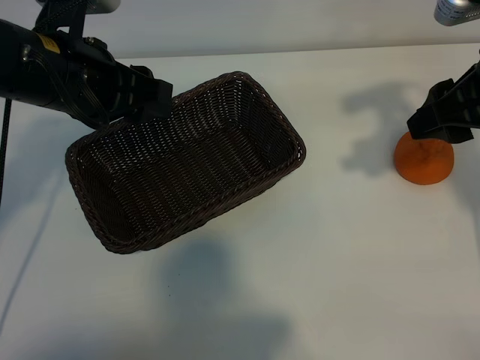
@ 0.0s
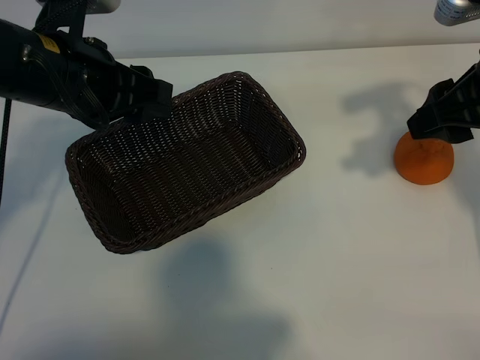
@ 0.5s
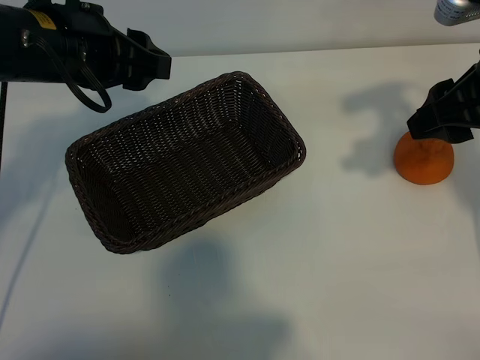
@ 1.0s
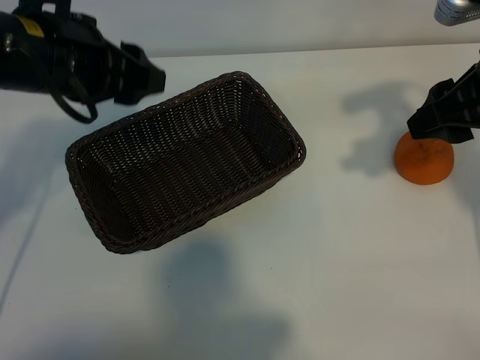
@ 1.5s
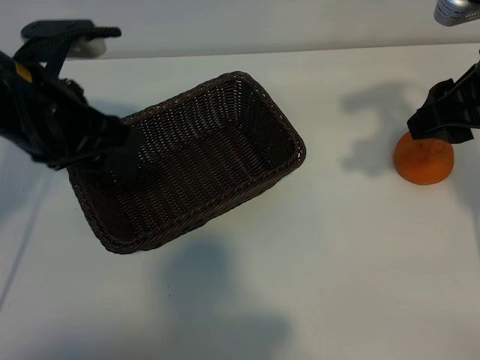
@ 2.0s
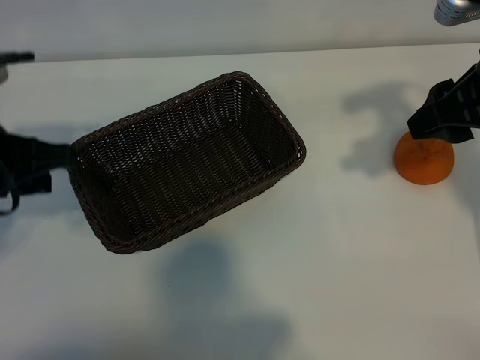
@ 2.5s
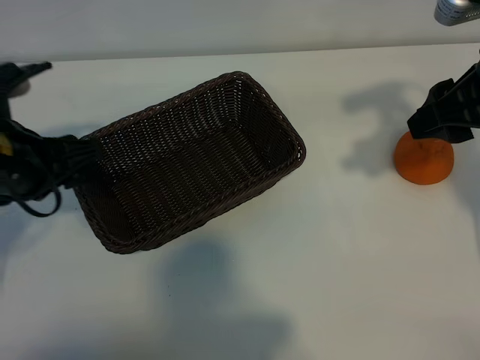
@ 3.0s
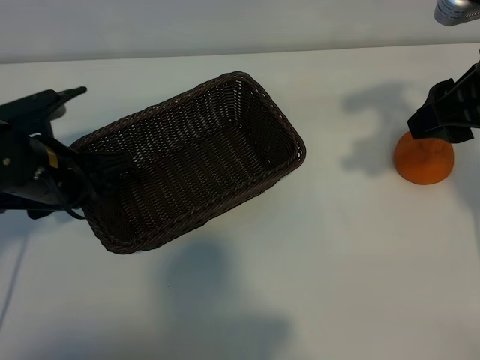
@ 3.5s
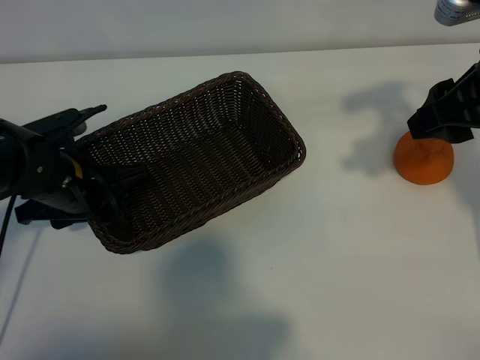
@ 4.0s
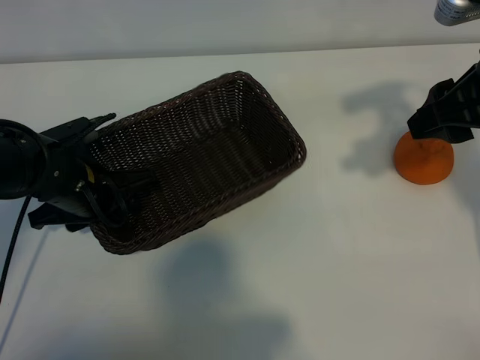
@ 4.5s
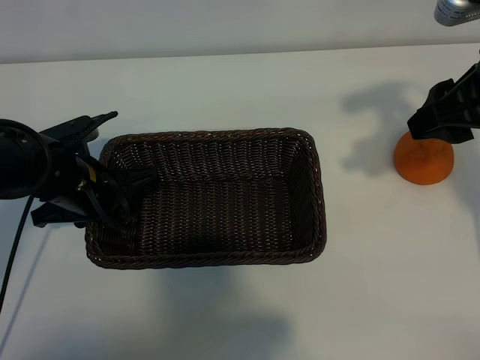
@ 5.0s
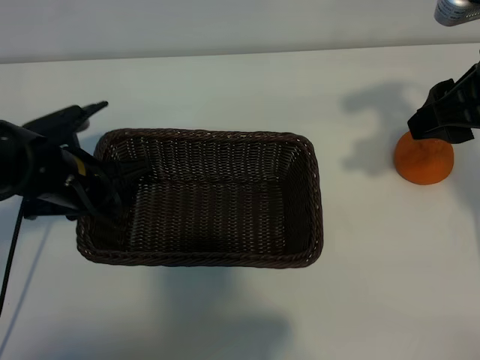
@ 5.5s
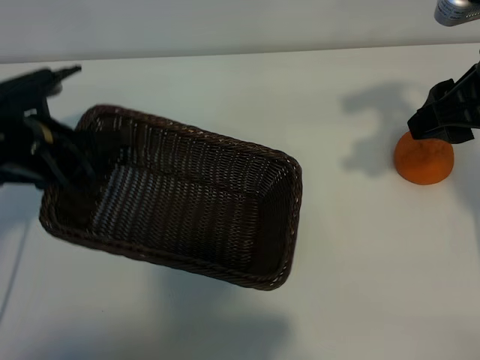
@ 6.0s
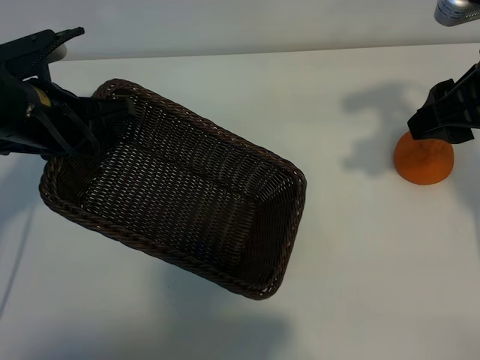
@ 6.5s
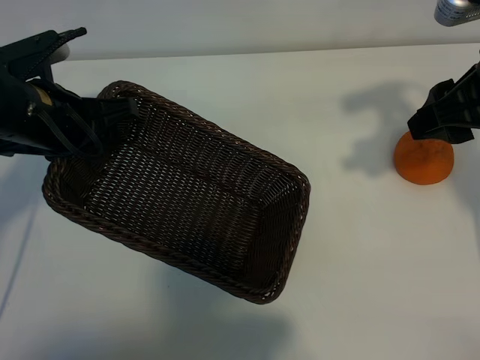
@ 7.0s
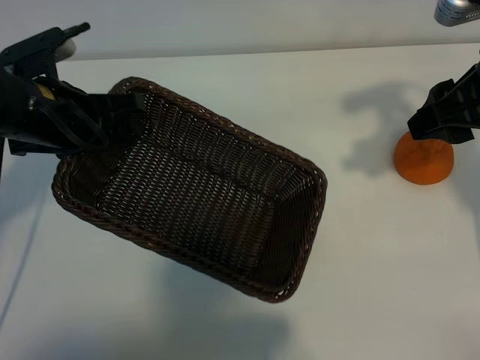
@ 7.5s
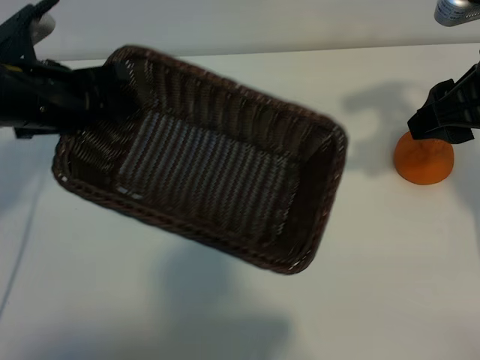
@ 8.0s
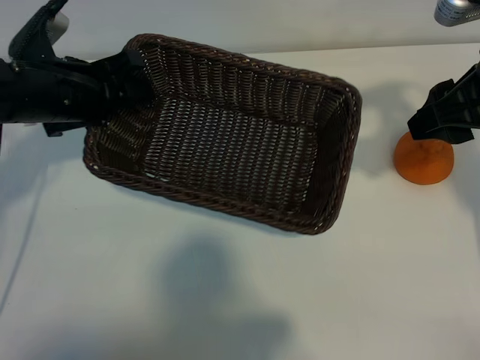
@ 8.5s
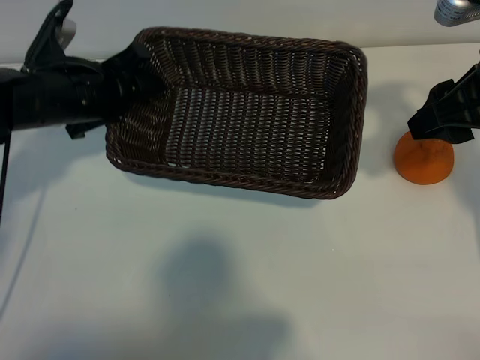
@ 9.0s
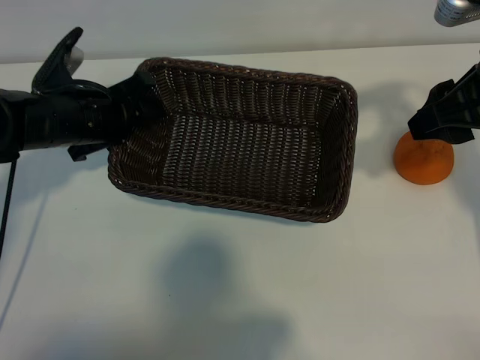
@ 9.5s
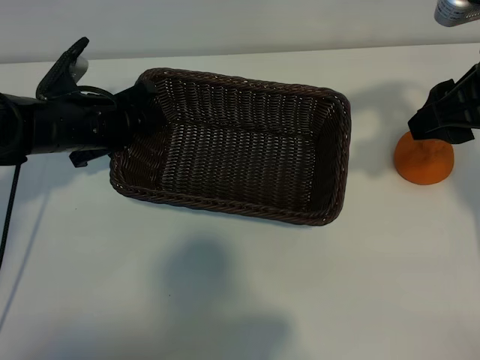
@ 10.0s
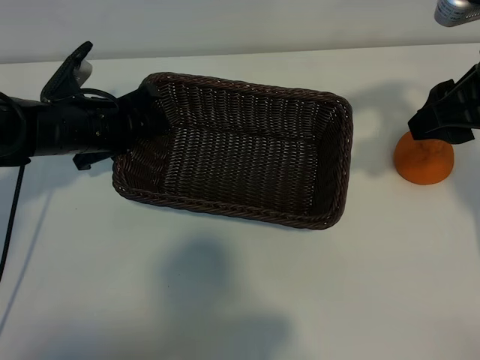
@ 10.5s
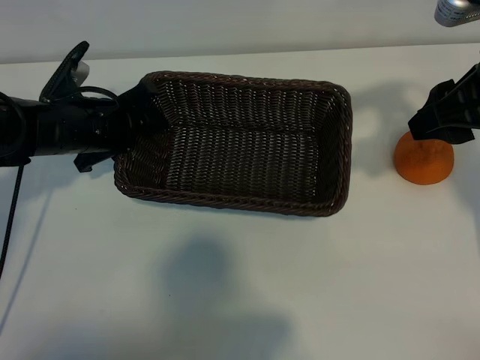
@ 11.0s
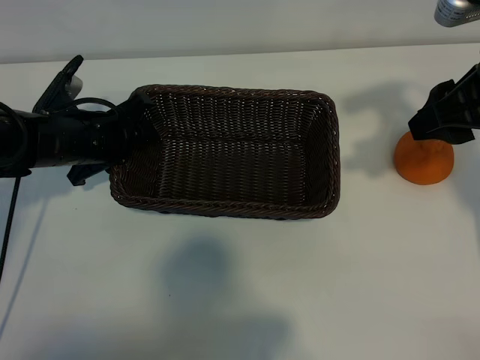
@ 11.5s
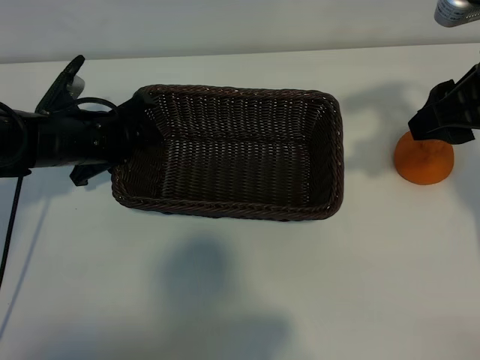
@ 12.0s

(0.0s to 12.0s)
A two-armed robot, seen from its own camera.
Task of the whole recording: pick up the orange and put it into the basket.
Step, 1.0s - 5.0s: Grasp the basket with left gripper.

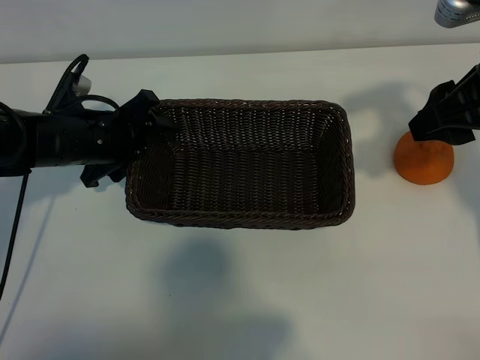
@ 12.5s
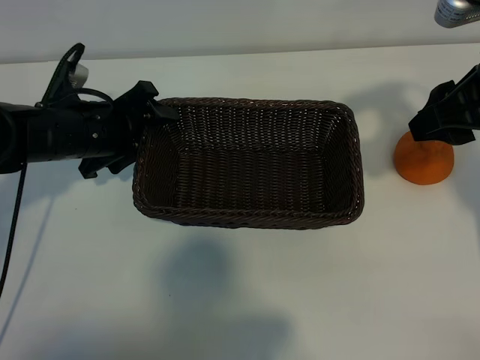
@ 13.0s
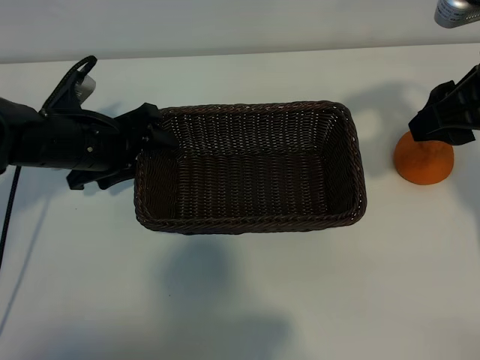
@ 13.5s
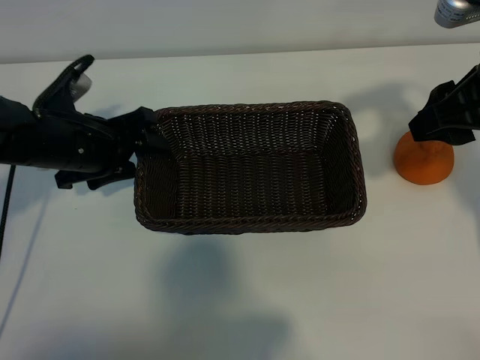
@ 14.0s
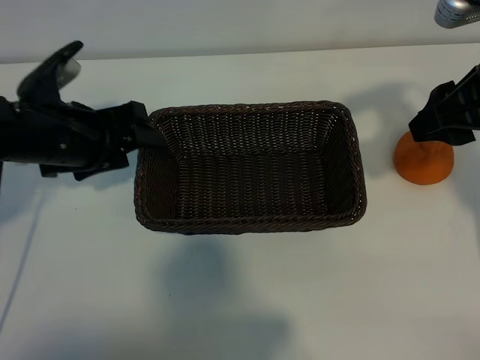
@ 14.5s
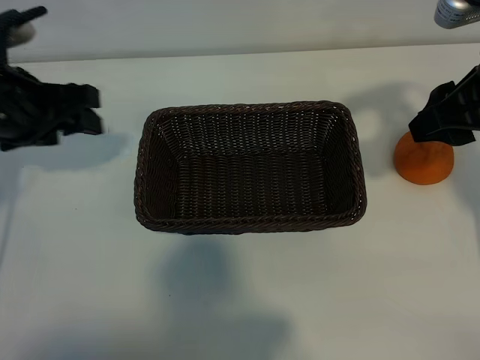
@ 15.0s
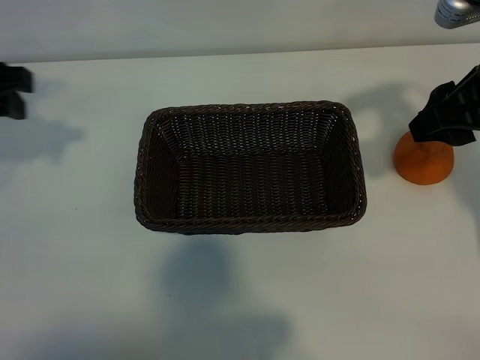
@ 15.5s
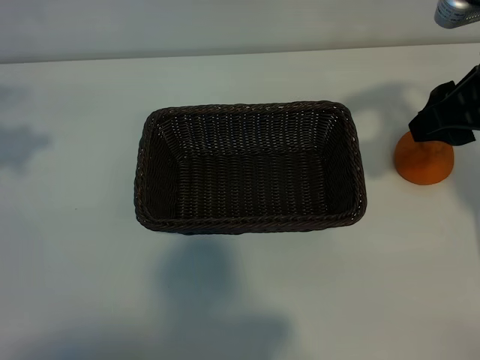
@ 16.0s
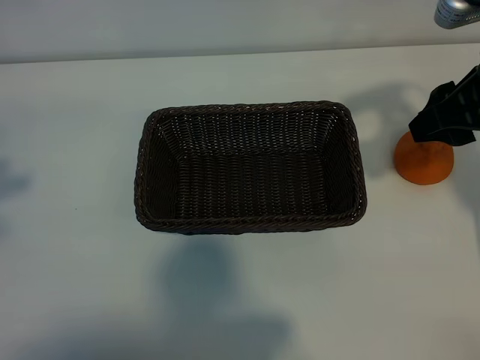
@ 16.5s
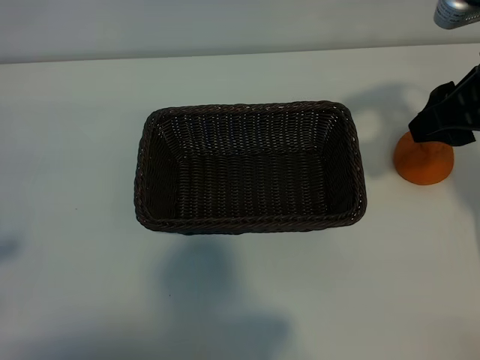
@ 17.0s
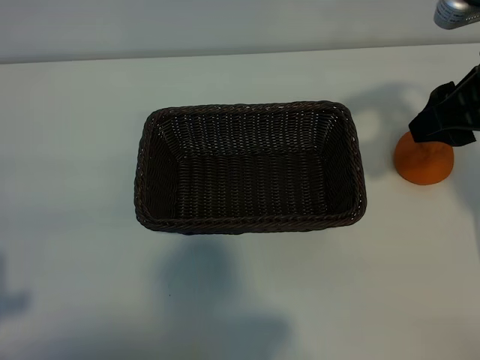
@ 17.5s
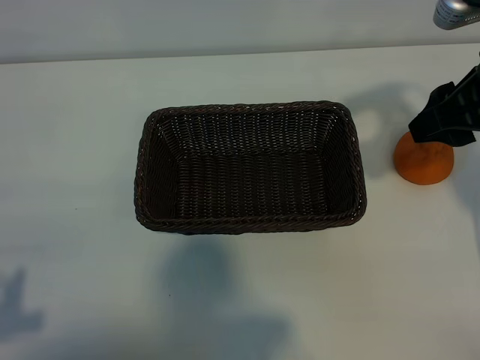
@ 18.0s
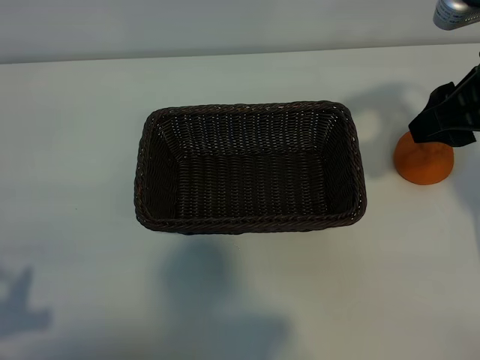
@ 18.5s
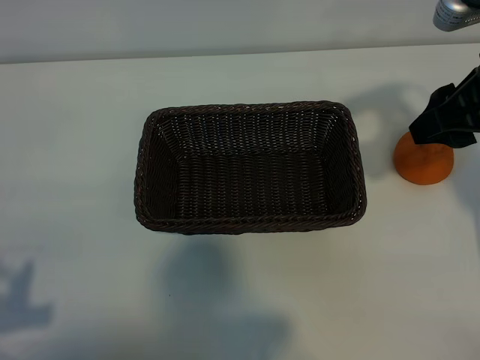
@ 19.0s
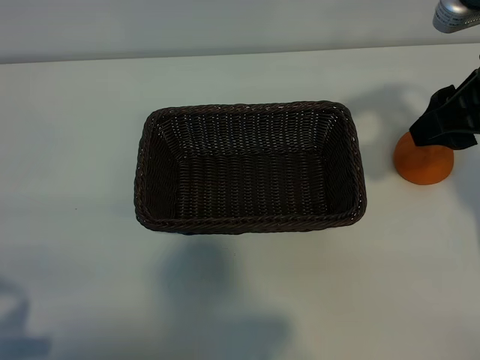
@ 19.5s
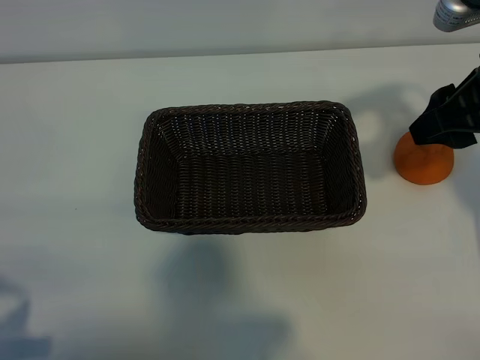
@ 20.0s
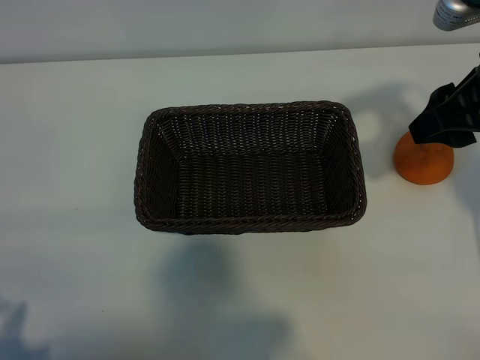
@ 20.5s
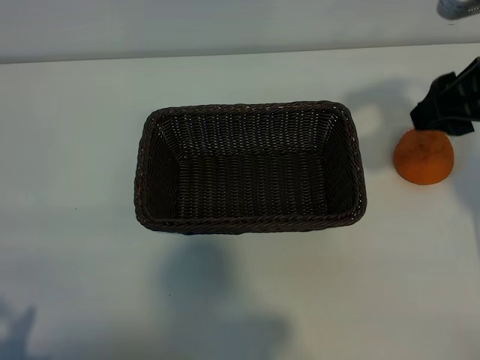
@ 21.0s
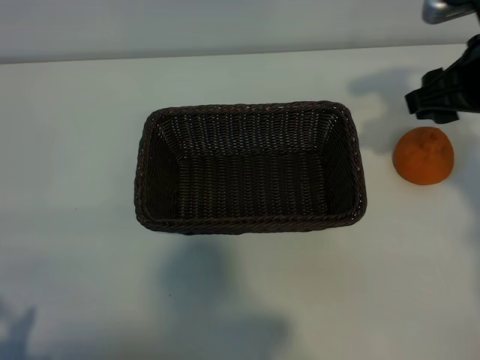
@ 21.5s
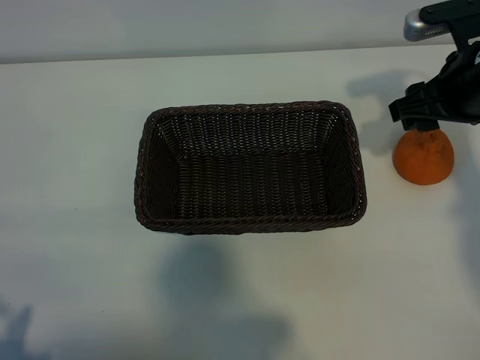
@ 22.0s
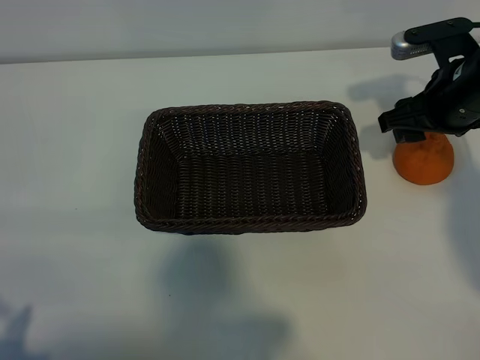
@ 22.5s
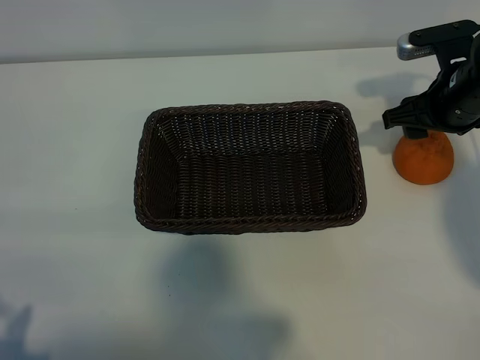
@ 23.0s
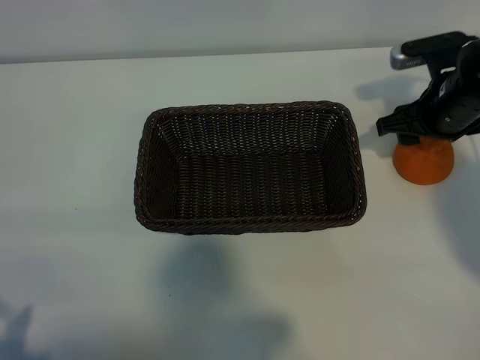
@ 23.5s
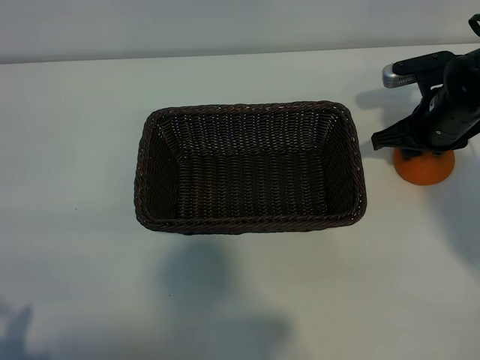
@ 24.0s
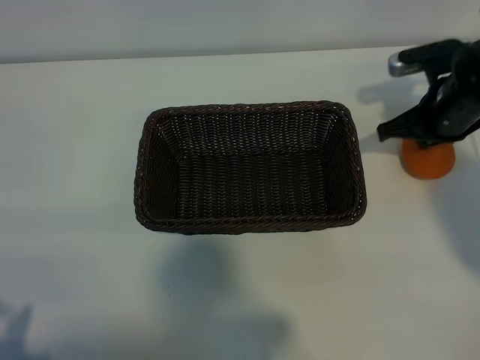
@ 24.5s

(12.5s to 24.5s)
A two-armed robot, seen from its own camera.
Task of the whole recording: pick up the orange and put it into the basket.
Step, 13.5s - 24.0s: Grasp the orange with right gripper.

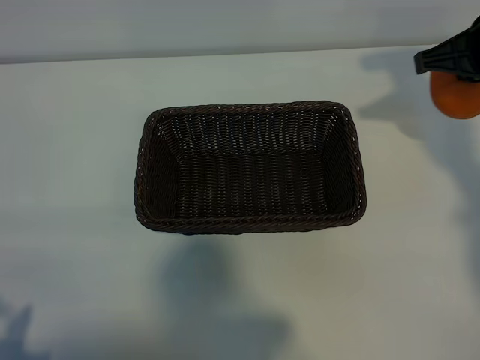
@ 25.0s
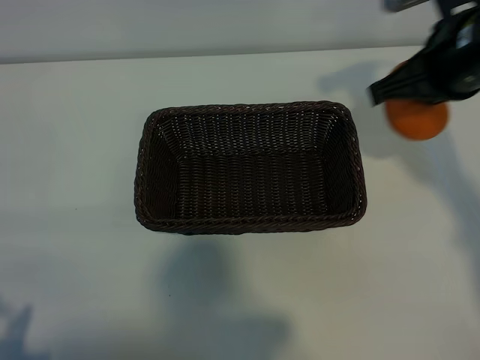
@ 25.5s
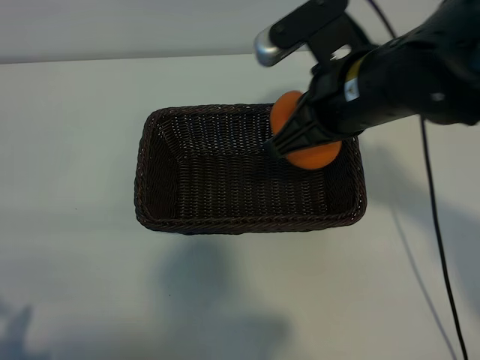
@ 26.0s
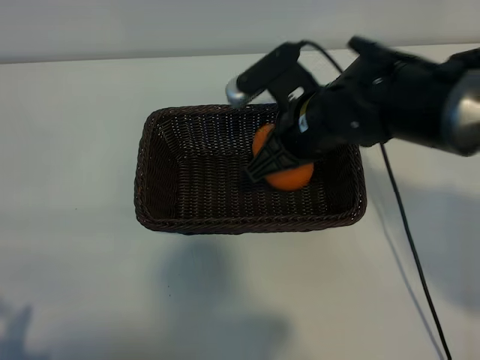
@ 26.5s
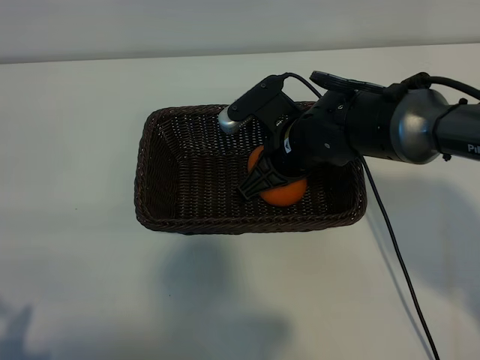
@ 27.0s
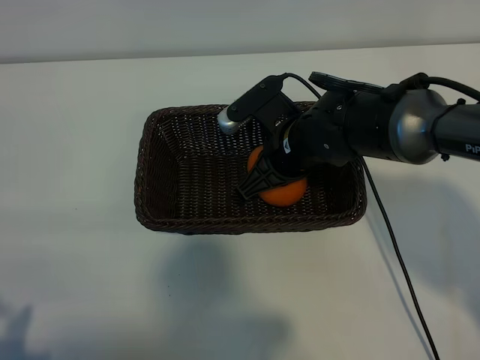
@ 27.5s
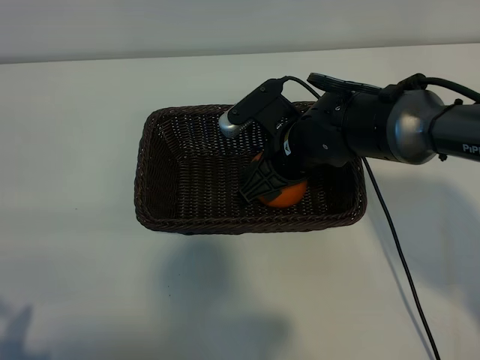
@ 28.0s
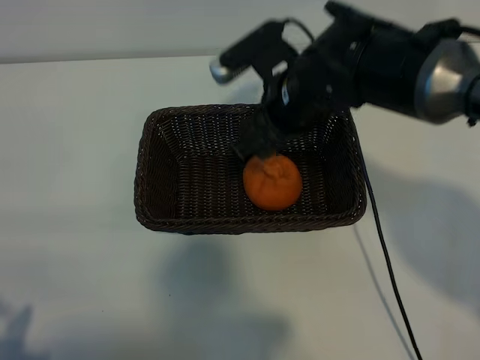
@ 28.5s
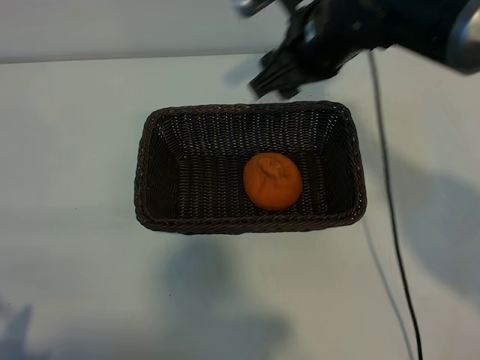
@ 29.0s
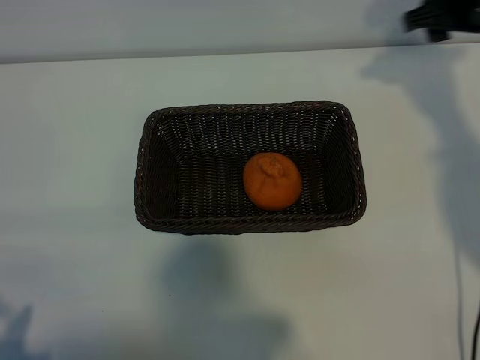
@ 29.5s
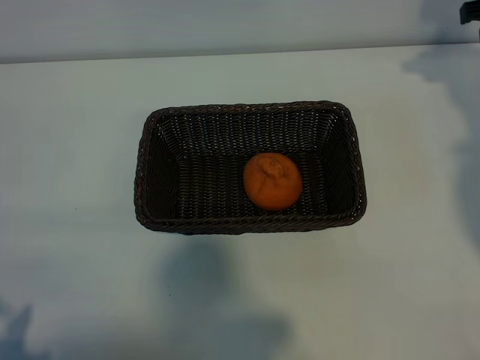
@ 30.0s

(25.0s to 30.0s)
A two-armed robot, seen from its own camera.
Task of the whole recording: pick up the orange and put it into the basket.
Step, 25.0s - 28.0s: Place the orange in the basket with right gripper.
